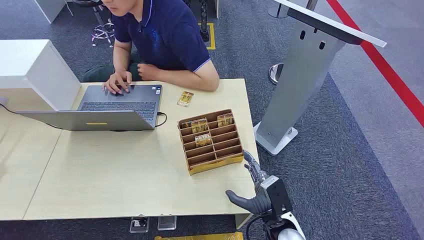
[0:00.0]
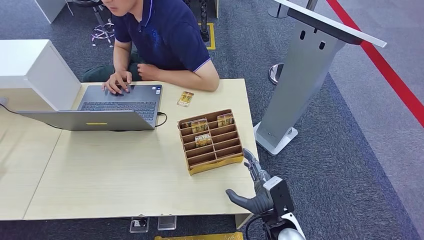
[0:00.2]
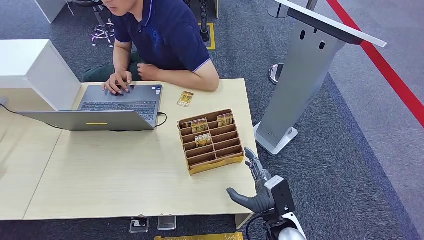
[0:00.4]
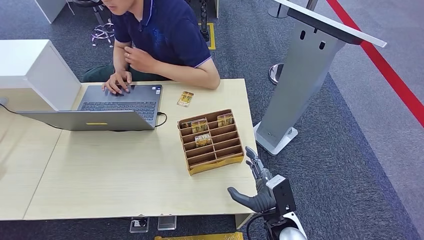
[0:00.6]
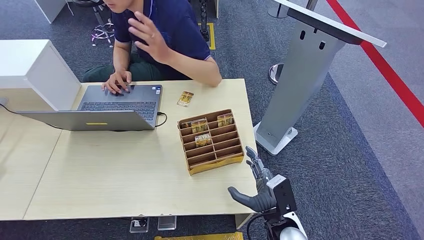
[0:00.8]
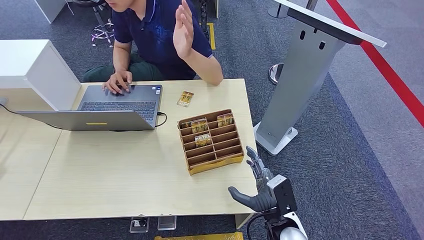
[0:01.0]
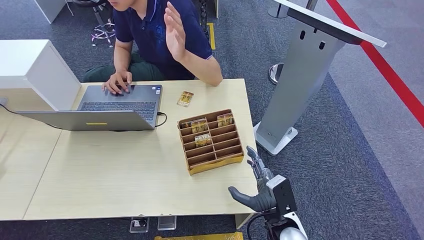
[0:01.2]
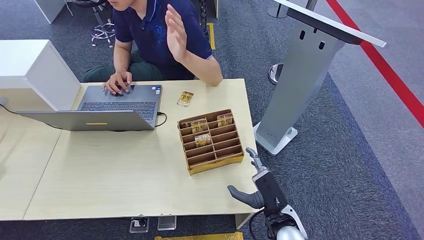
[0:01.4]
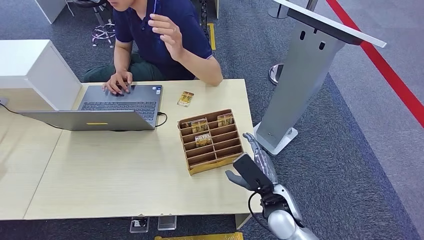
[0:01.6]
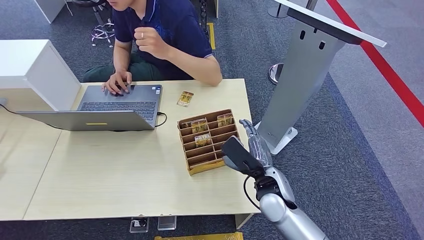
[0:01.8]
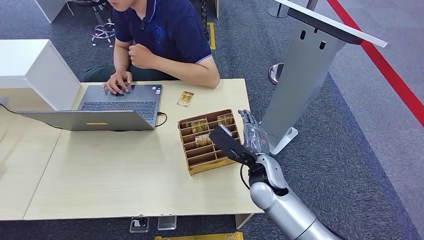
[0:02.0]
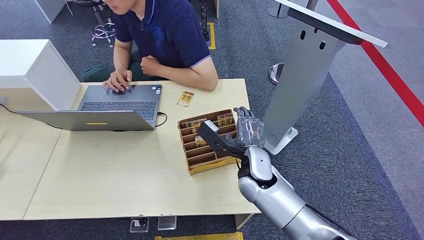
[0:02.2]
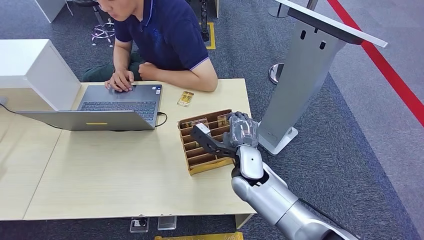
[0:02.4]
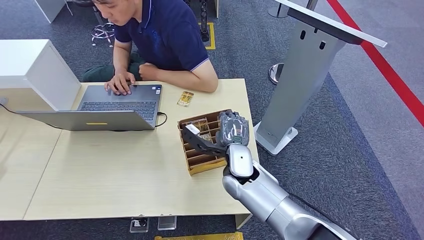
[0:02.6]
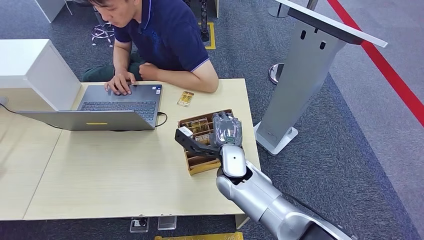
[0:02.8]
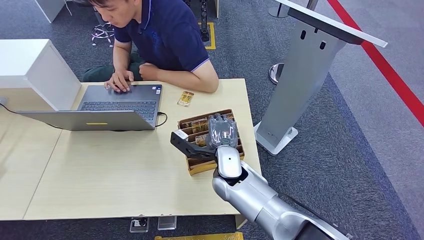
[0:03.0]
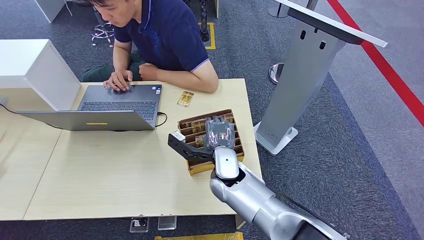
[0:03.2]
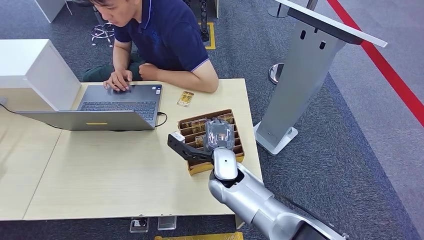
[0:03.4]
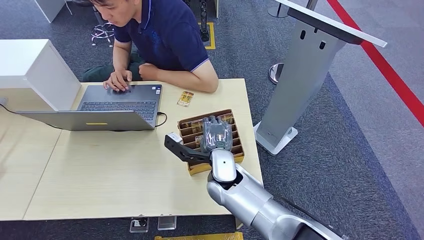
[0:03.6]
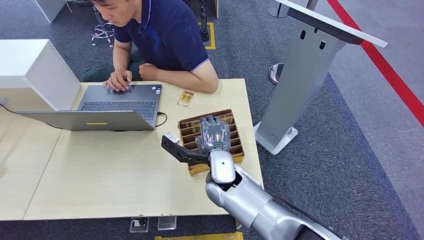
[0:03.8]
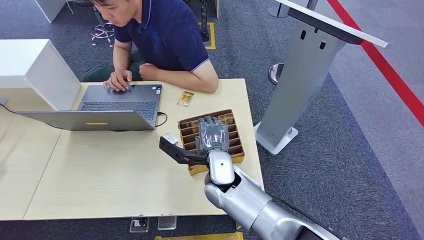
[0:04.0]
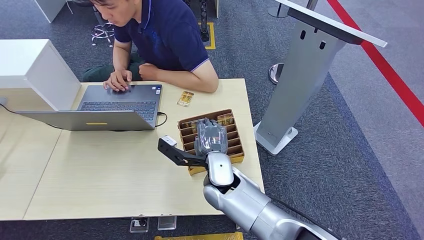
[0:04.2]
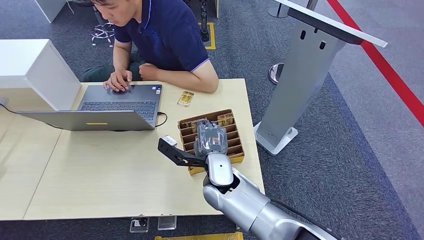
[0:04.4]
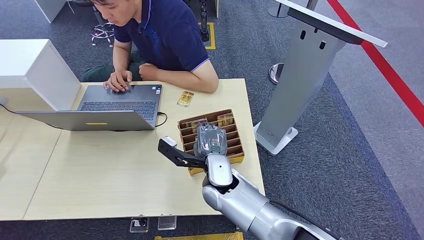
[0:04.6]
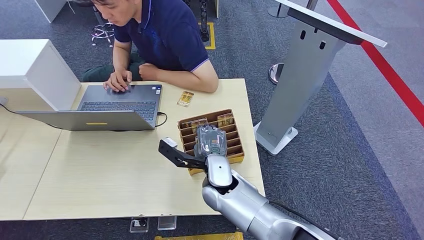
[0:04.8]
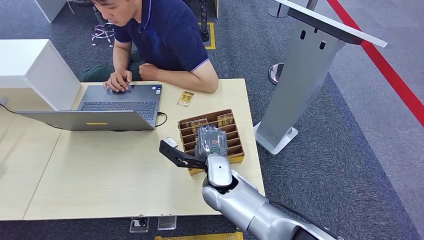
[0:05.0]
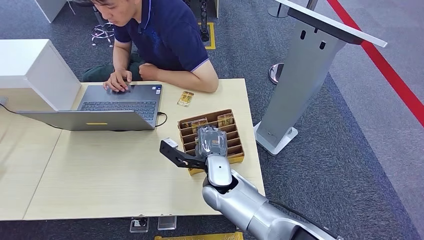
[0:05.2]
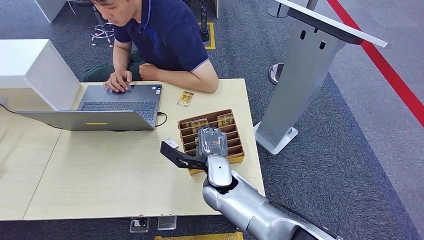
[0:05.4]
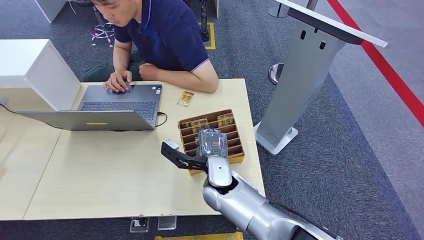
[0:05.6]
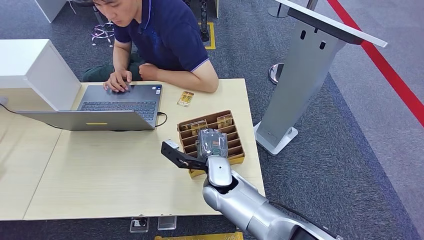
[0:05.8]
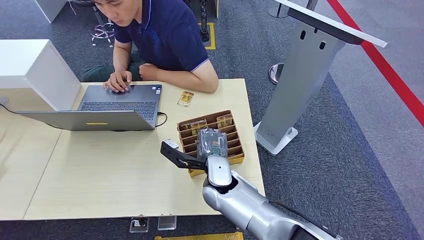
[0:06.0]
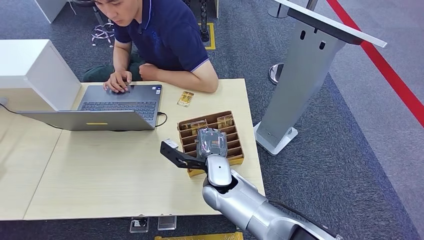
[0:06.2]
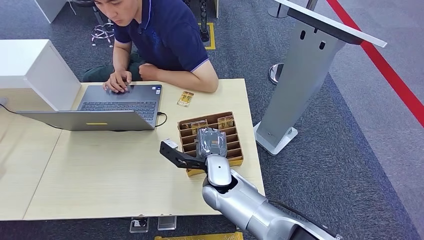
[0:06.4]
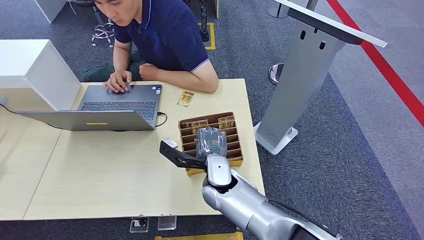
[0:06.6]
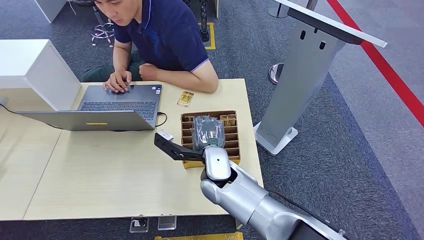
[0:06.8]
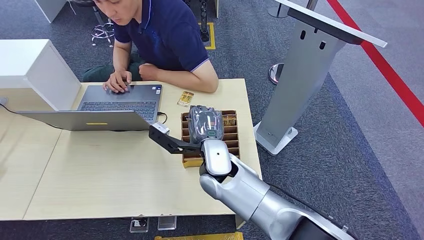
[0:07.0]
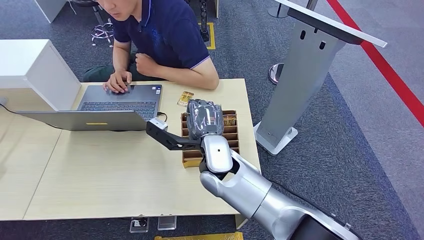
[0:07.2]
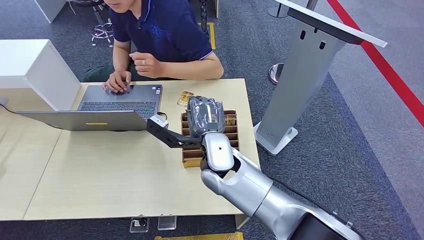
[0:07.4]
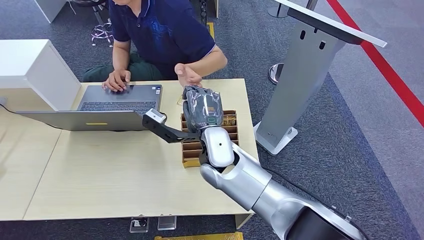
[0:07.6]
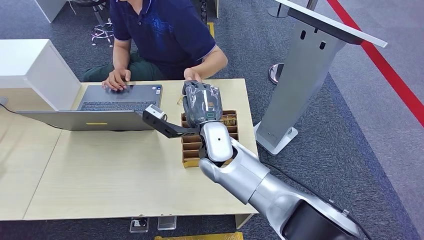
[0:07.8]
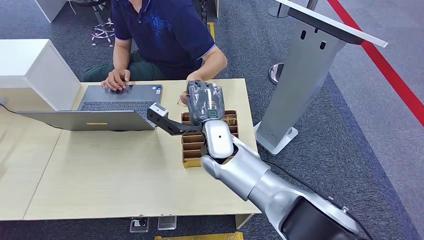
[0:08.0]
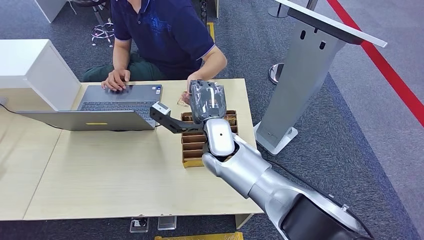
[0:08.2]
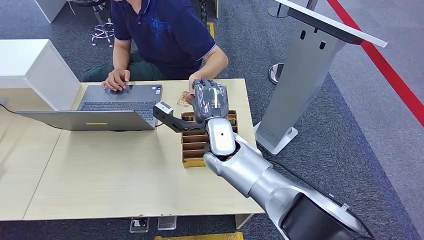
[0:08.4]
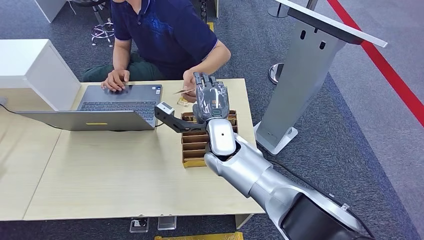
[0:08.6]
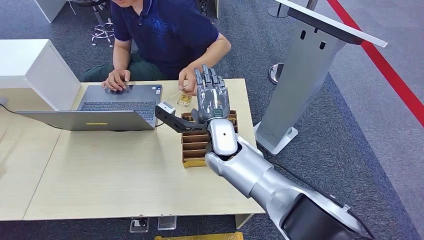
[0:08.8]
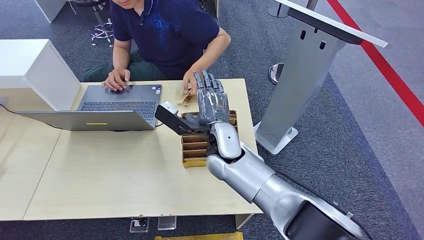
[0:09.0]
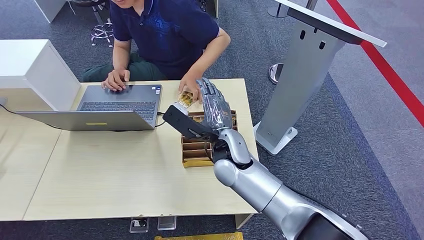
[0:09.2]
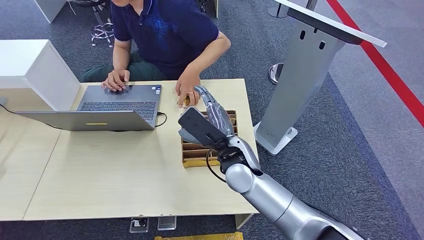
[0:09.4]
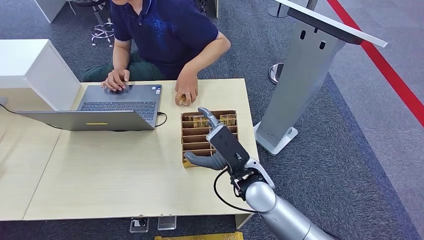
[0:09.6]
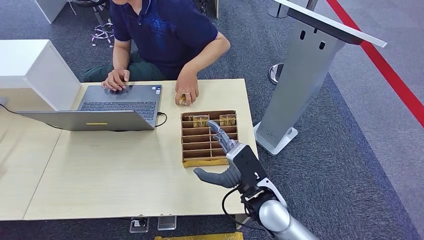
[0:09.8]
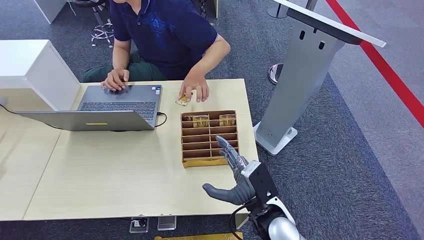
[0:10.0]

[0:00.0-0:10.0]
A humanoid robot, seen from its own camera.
Step, 0:00.0 to 0:06.6: Pick up the room card from the card holder.
Step, 0:07.0 to 0:10.0: Hand the room card to the target.
0:01.4 to 0:02.8: The right hand is displaced to the left by approximately 10 cm.
0:02.8 to 0:05.8: There are only small adjustments of the hands.
0:05.8 to 0:07.2: The right hand travels upward by approximately 10 cm.
0:07.2 to 0:08.6: The hands stay close to where they were, moving slightly.
0:08.6 to 0:10.0: The right hand heads backward, to the right and downward, covering some 20 cm.

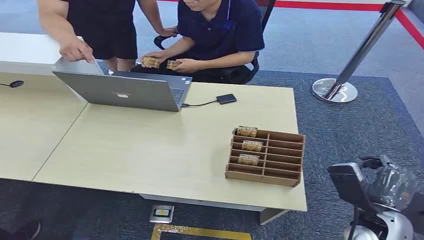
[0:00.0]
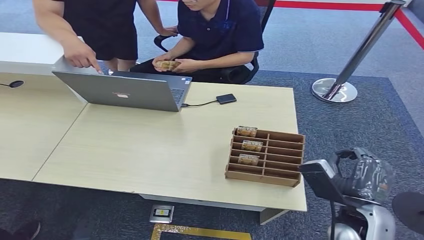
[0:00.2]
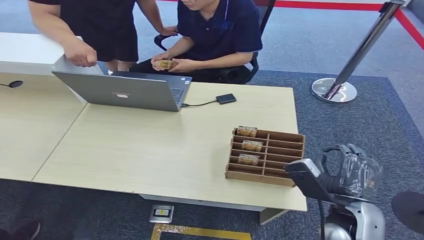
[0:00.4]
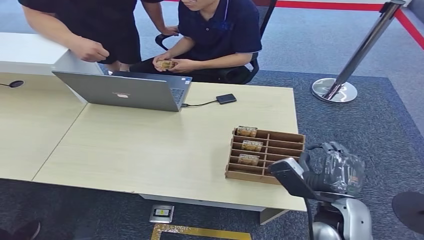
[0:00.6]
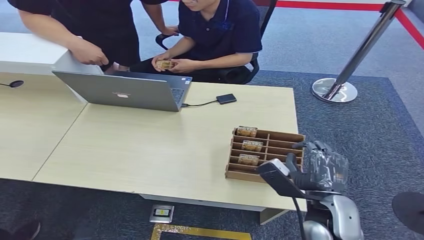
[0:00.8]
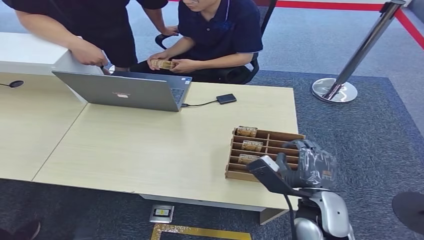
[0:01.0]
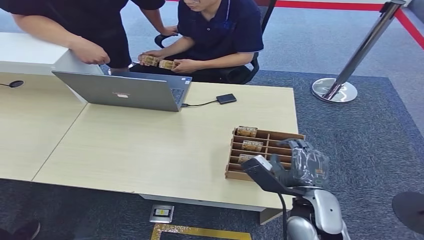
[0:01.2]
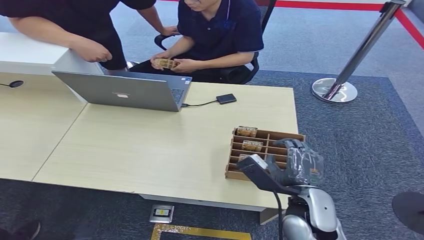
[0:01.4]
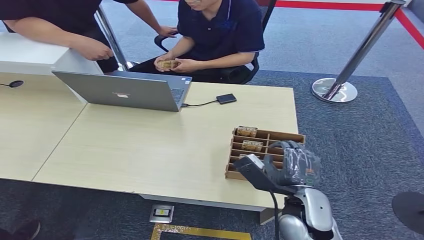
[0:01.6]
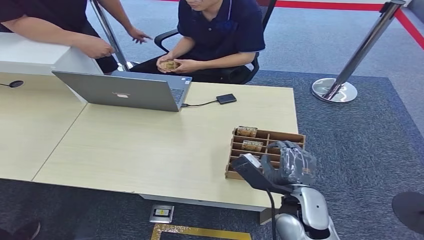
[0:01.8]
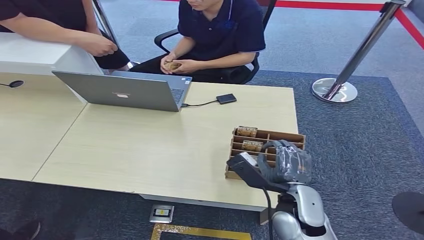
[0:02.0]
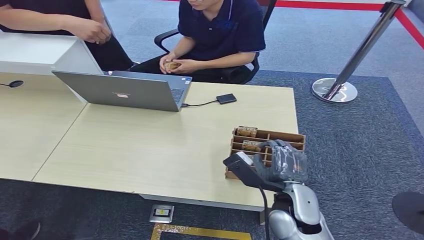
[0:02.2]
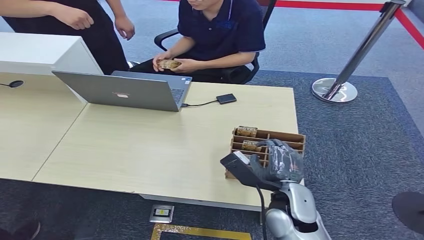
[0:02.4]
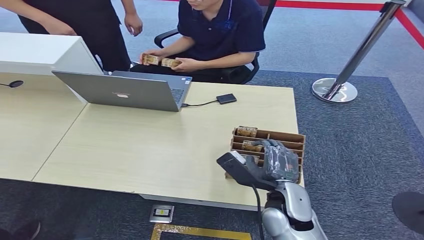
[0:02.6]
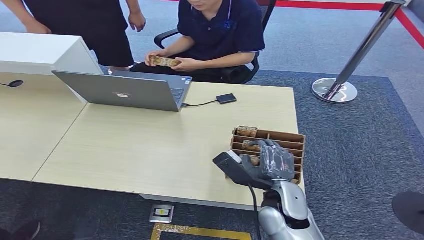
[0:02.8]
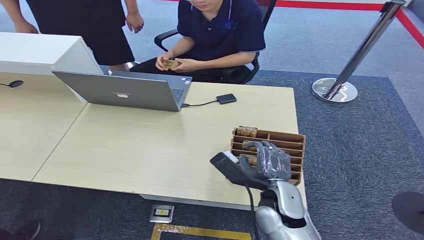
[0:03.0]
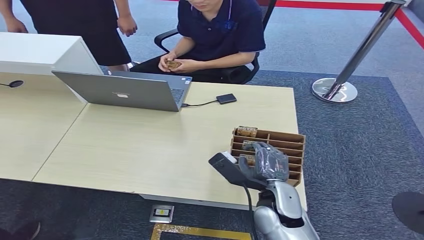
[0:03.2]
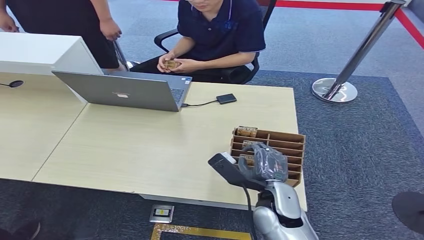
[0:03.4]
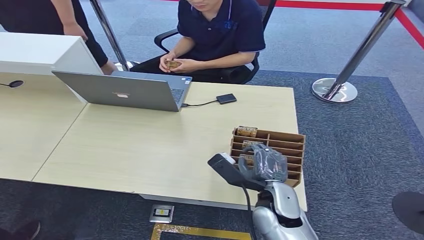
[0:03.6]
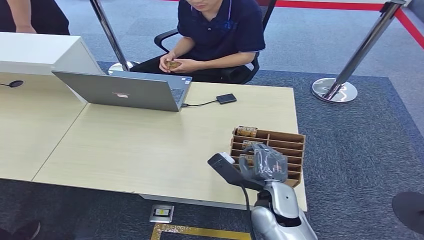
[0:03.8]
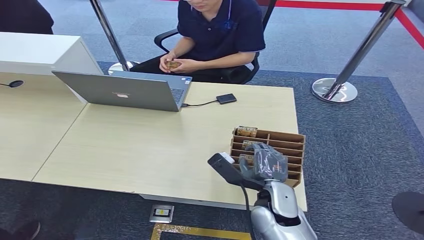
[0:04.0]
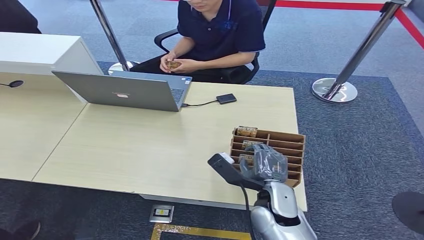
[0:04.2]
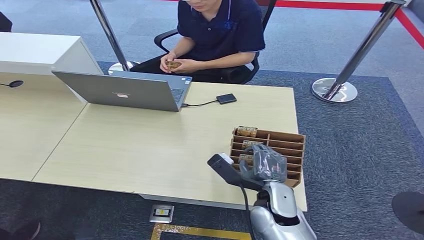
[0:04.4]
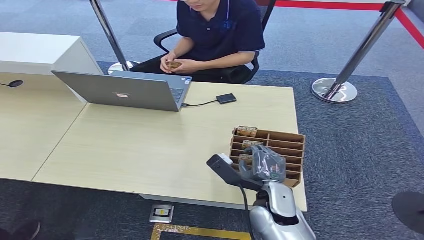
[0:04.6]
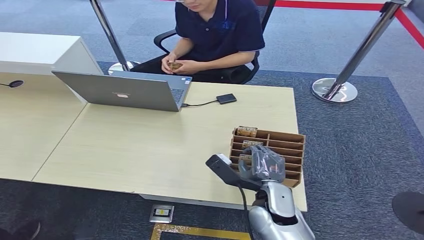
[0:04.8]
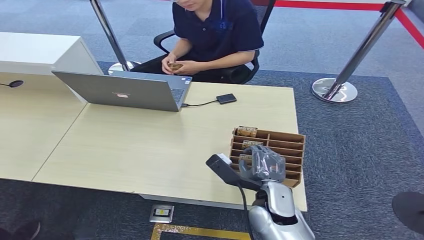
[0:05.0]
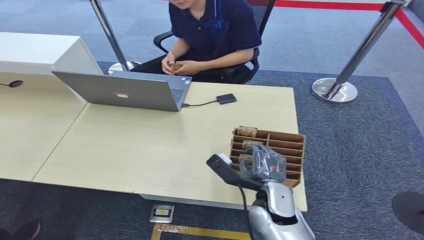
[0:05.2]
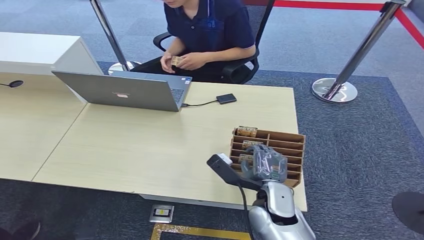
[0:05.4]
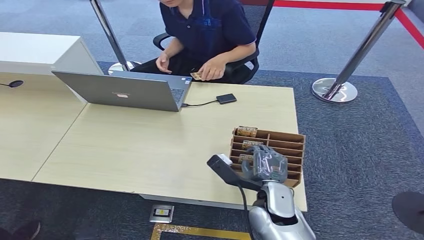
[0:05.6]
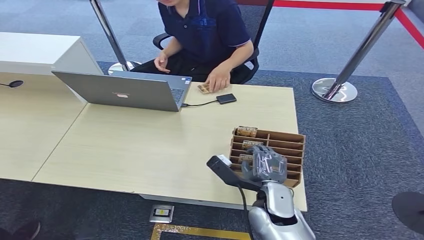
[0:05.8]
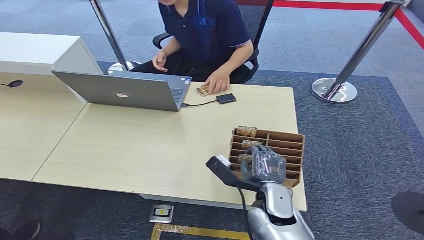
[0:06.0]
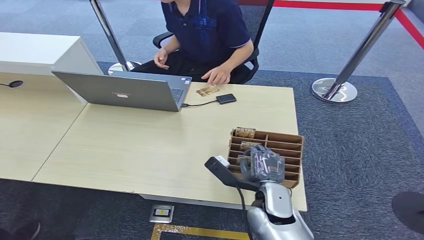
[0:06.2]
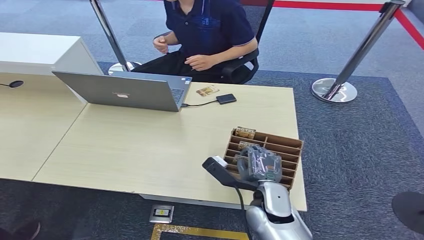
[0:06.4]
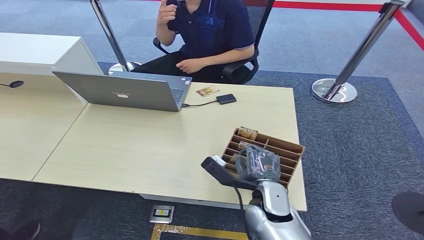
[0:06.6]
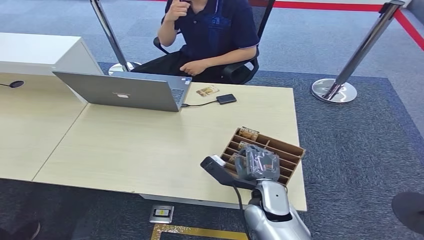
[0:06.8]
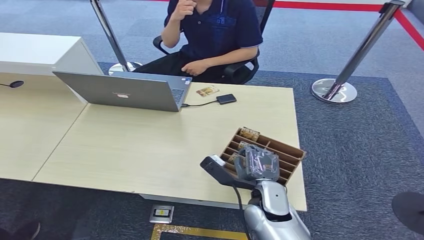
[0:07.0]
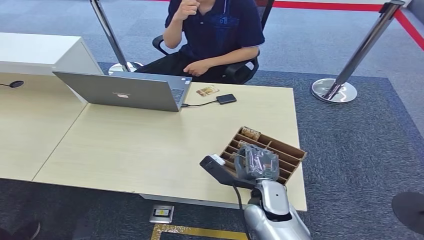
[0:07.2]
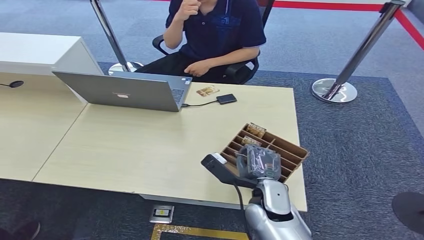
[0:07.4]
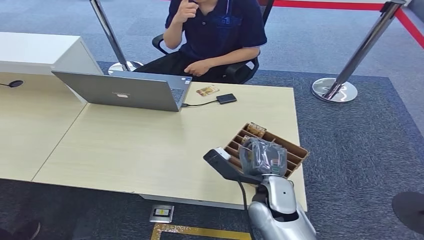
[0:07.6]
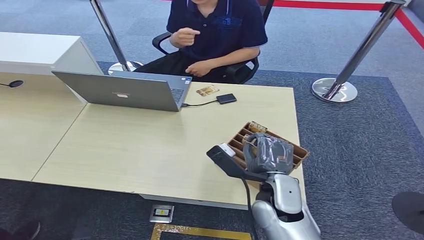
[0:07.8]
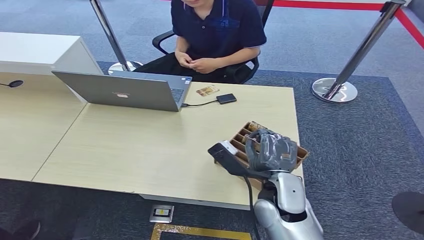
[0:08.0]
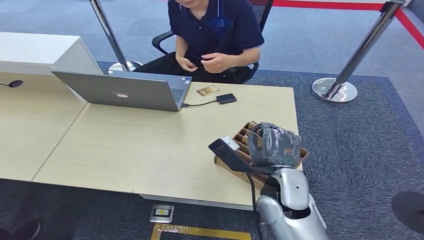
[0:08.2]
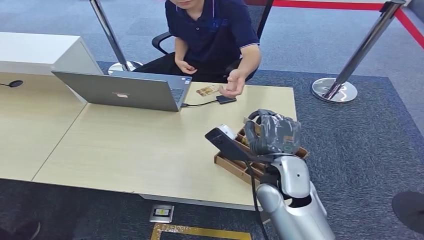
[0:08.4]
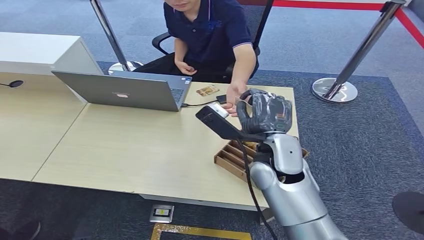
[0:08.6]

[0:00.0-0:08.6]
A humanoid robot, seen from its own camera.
Step, 0:00.0 to 0:07.2: Pick up the room card from the card holder.
Step, 0:07.6 to 0:08.6: Hand the room card to the target.
0:01.4 to 0:04.4: The hands make only small movements.
0:04.4 to 0:05.8: Neither hand changes place.
0:05.8 to 0:07.2: The hands move only a little.
0:07.2 to 0:08.6: The right hand heads upward and forward, covering about 15 cm.
